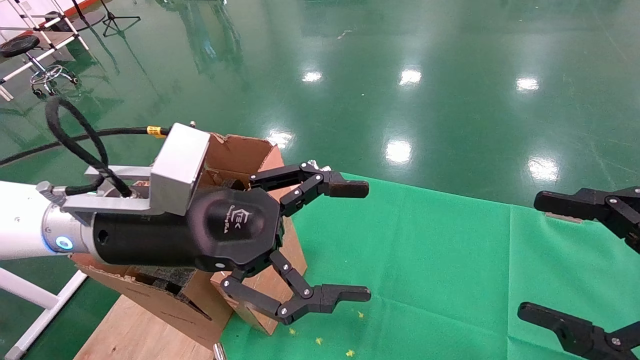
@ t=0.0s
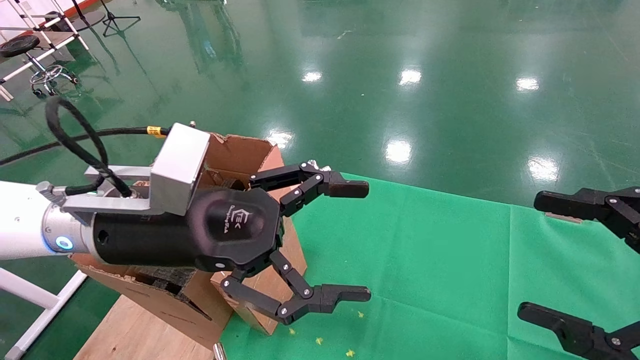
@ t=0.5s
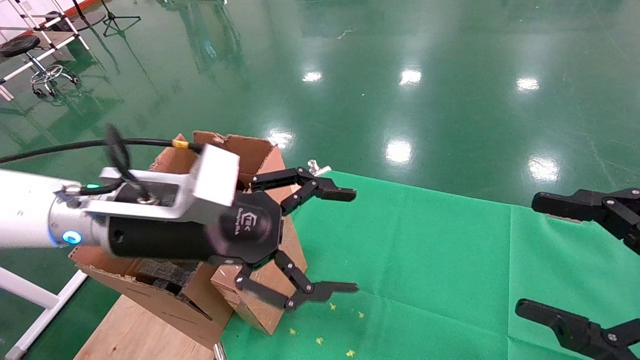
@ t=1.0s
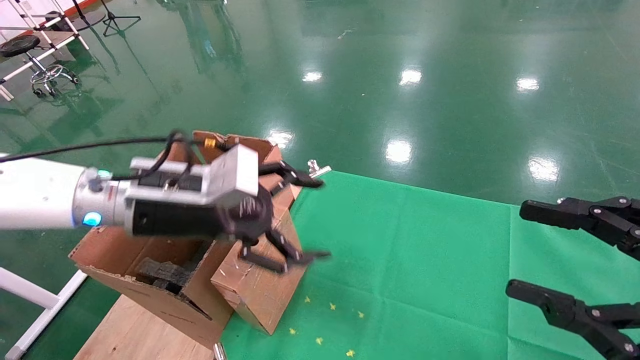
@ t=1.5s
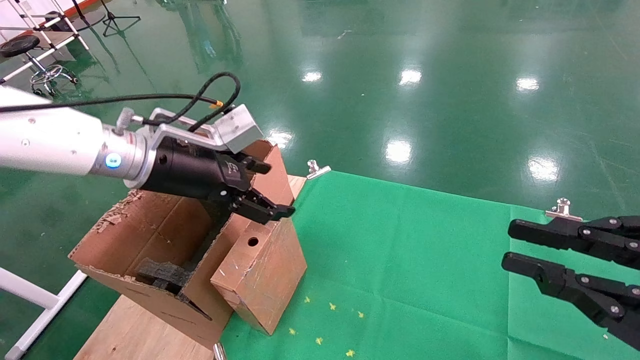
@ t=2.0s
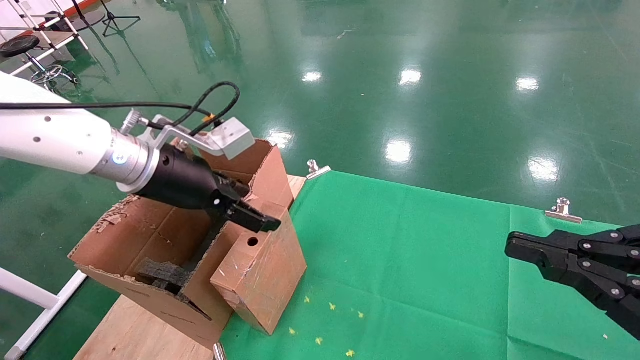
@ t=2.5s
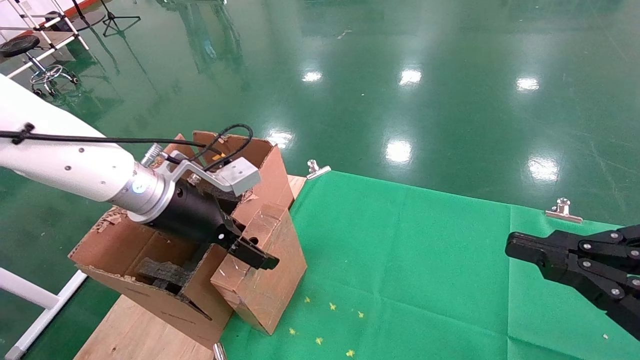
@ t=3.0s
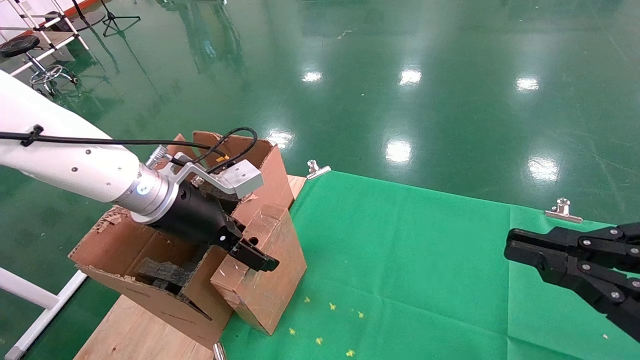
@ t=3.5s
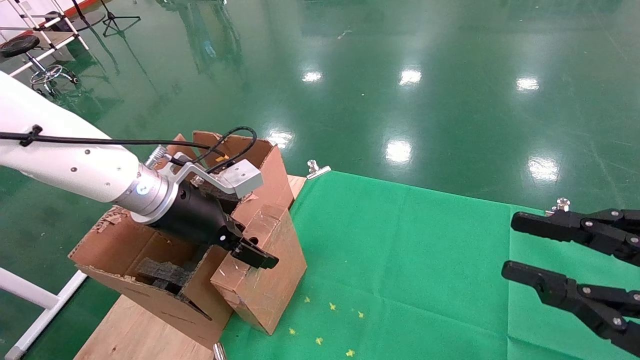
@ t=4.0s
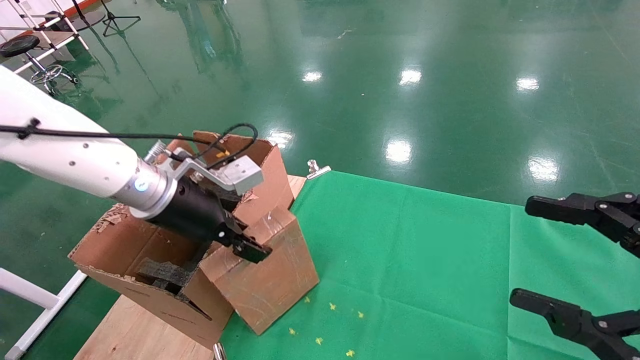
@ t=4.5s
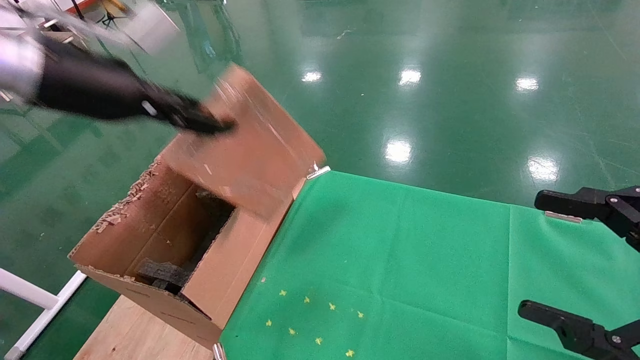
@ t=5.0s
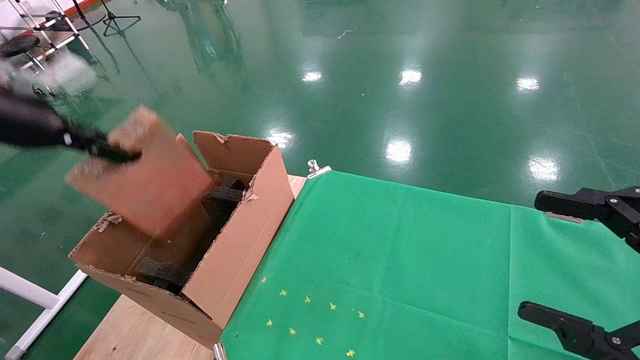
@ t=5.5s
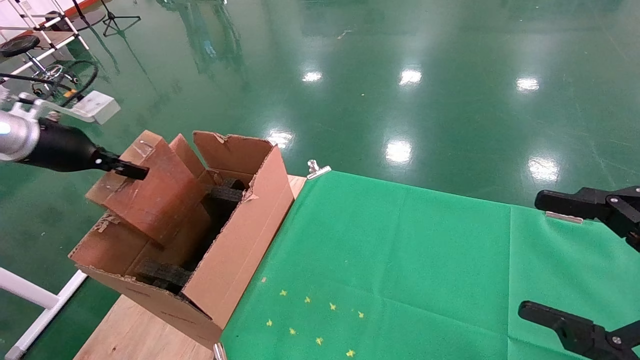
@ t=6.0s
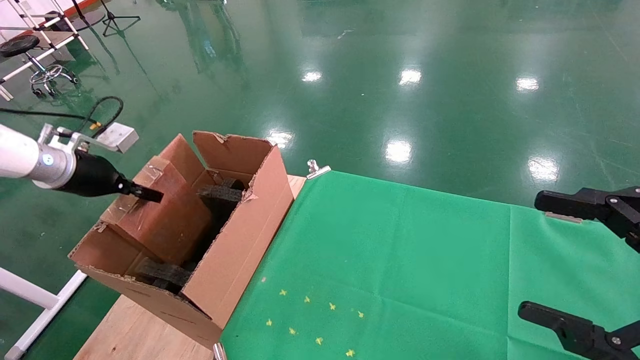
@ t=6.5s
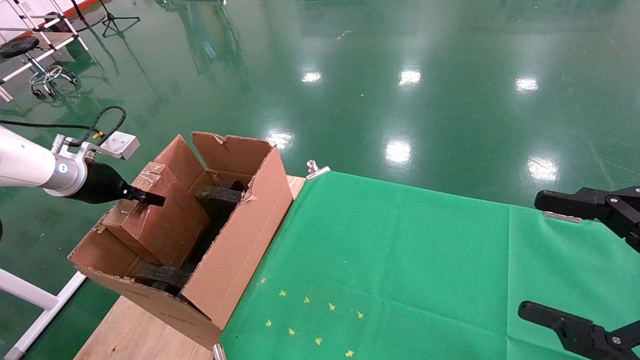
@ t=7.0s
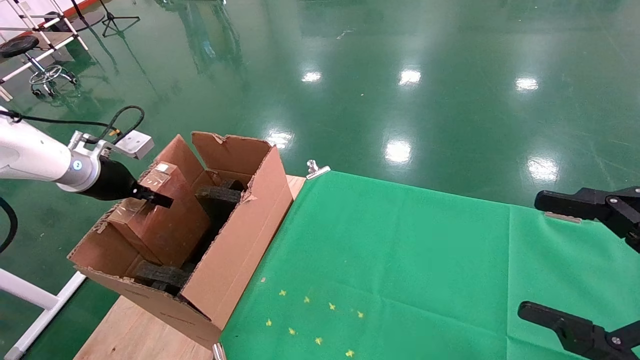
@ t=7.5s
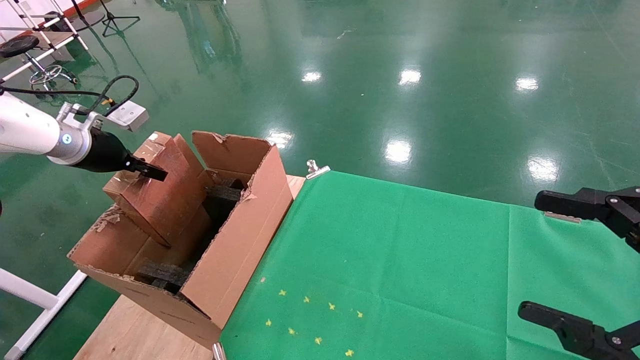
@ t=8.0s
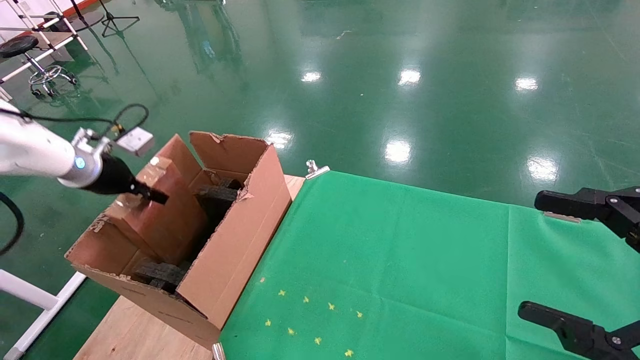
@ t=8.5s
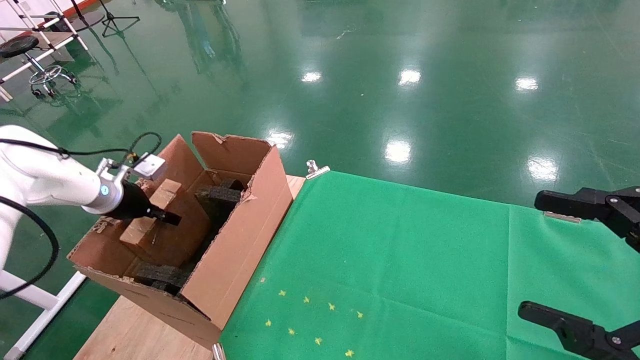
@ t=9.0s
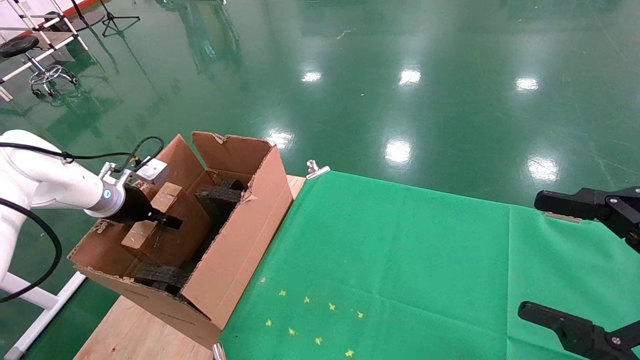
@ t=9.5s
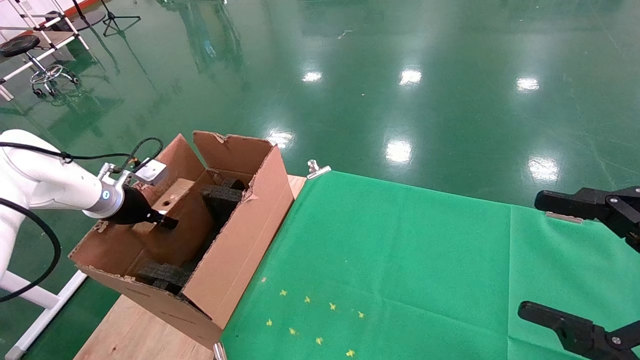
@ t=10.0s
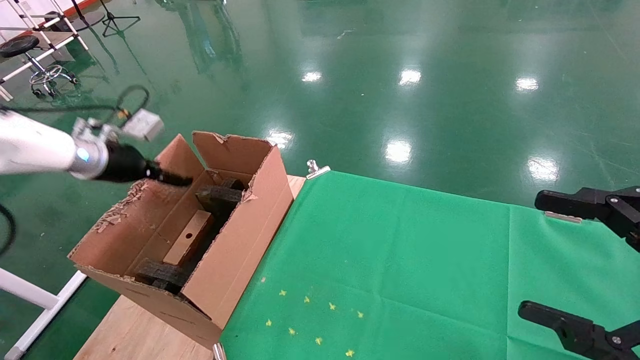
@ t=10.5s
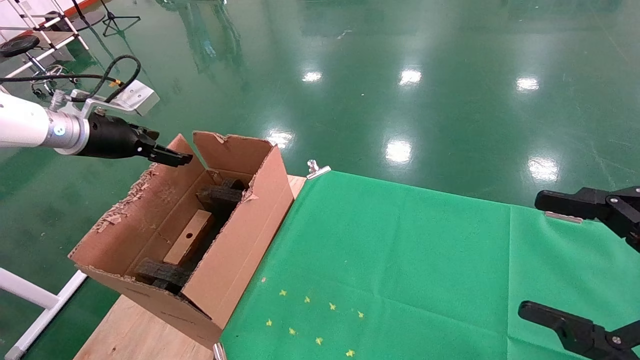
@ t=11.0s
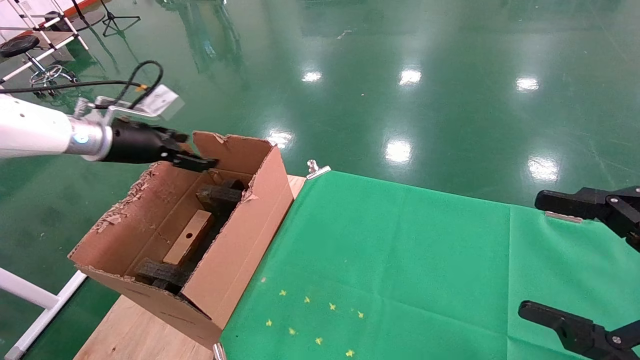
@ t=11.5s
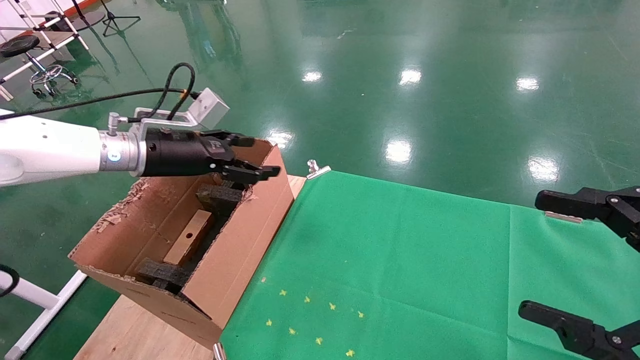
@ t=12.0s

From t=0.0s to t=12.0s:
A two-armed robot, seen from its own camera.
Task of the whole recording: using a robotic arm to pick up a cardboard box and palace it the carton.
Step, from t=1.5s to t=4.5s: Pick up the mouse and the power cord paper box.
Step, from t=5.0s to t=10.5s: Place the mouse and the power cord paper box into the container.
From t=0.0s to t=2.0s: The right gripper closes. Meanwhile the left gripper shifts roughly 10 cm forward.
From t=4.0s to t=6.0s: The right gripper opens. Meanwhile the left gripper heads to the left, covering some 25 cm, and closes.
From t=6.0s to t=8.0s: The left gripper goes about 5 cm forward, and reaches roughly 10 cm downward, then returns.
From t=8.0s to t=10.0s: The left gripper shifts about 10 cm downward.
From t=10.0s to t=12.0s: The left gripper heads to the right and upward, covering about 15 cm, and opens its fingers.

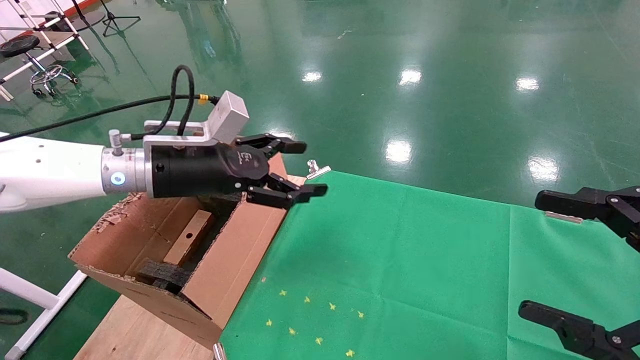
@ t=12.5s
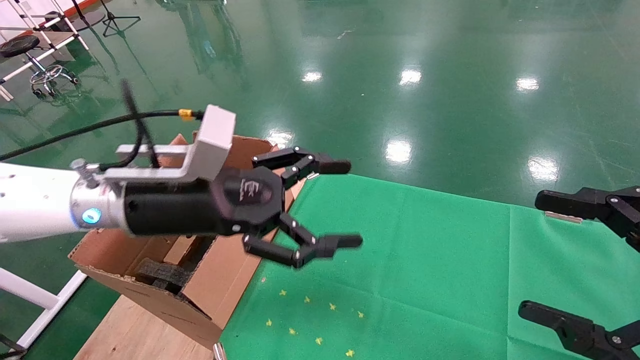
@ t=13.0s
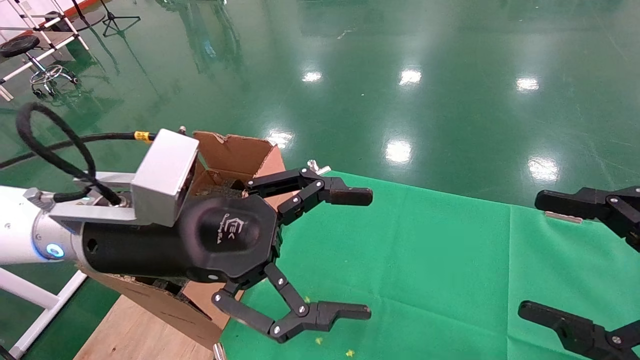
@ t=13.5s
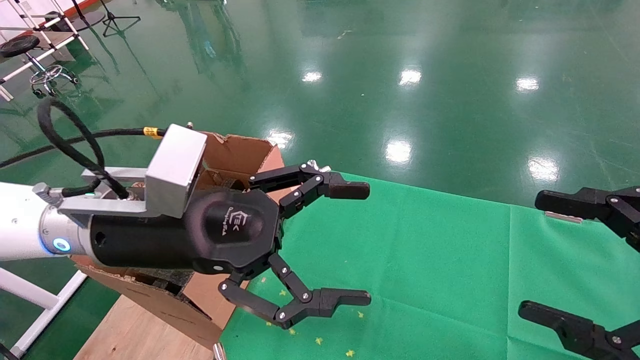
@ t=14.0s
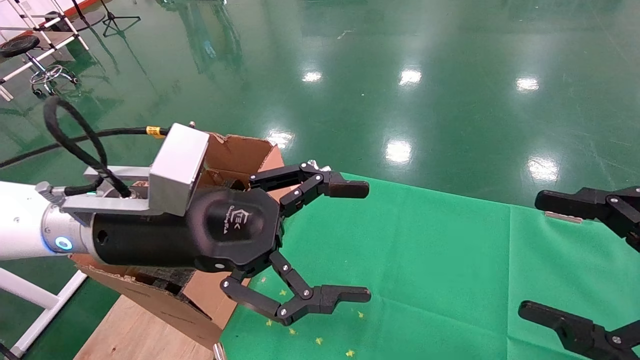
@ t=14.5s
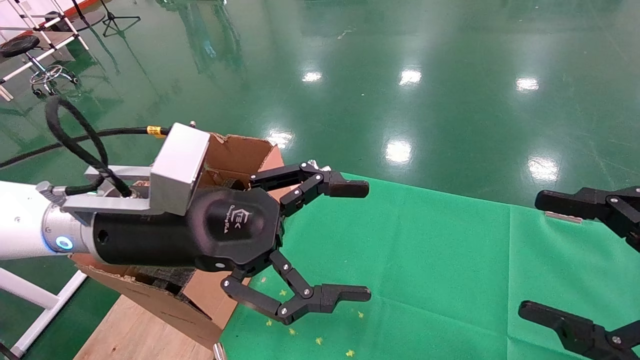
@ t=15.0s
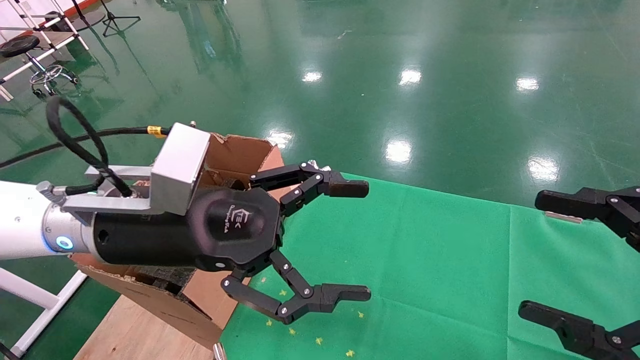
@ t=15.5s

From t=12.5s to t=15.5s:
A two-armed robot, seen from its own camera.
Task of the whole recording: using a robotic arm to pick up a cardboard box and palace it the carton.
From t=12.5s to t=14.0s: The left gripper moves backward and to the right, about 15 cm.
From t=14.0s to t=15.5s: Neither gripper changes place.
